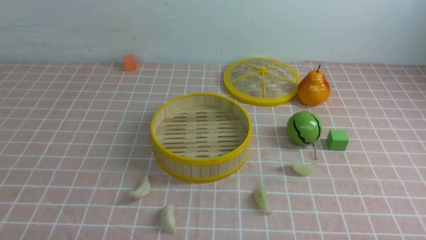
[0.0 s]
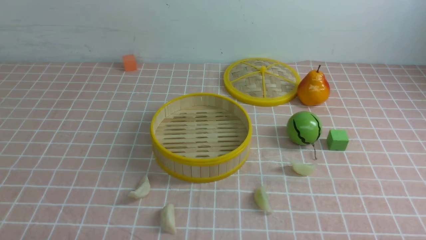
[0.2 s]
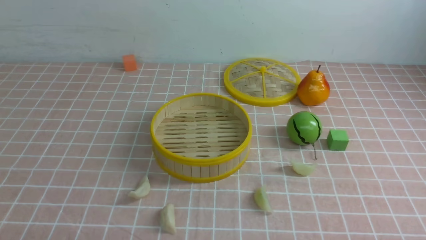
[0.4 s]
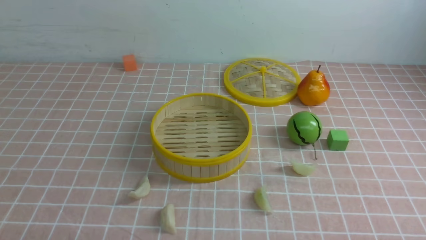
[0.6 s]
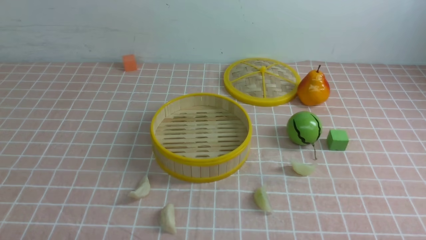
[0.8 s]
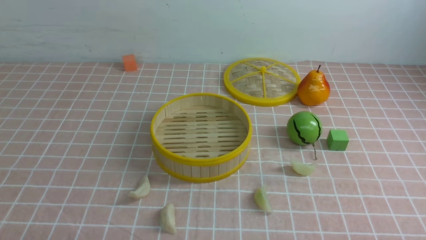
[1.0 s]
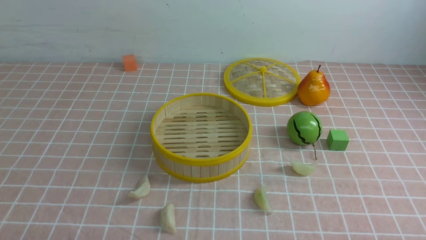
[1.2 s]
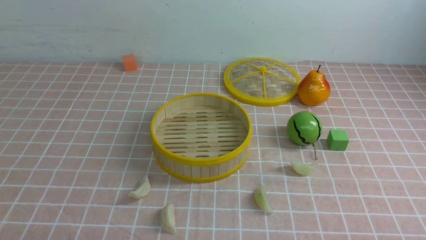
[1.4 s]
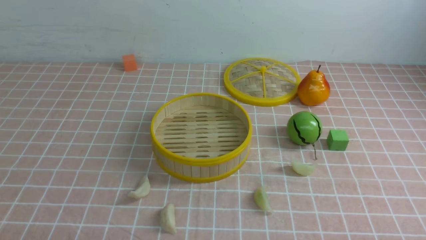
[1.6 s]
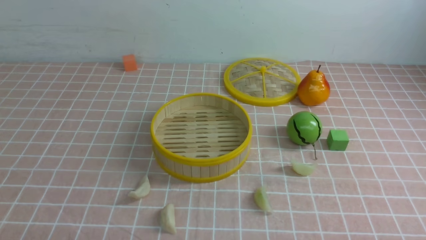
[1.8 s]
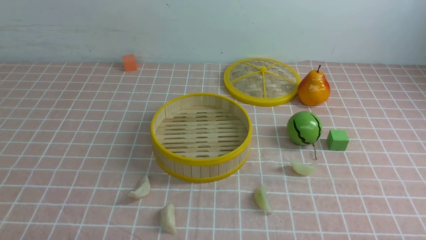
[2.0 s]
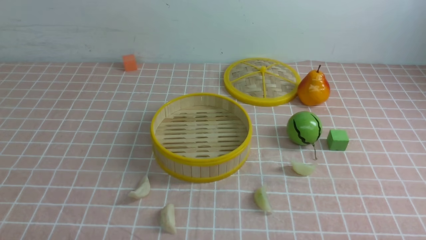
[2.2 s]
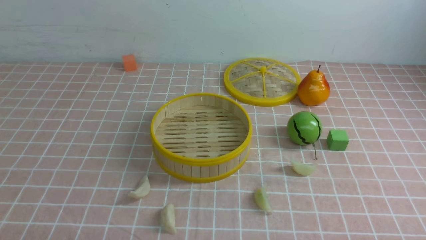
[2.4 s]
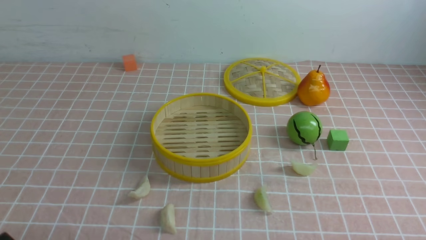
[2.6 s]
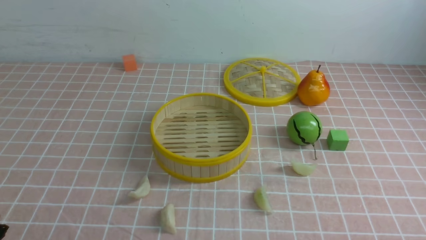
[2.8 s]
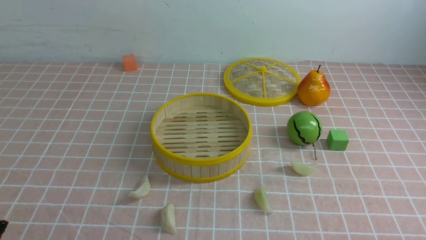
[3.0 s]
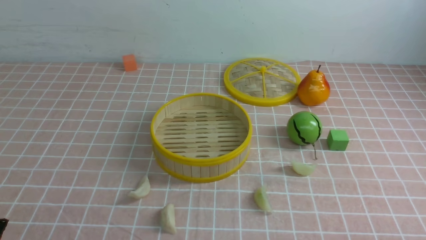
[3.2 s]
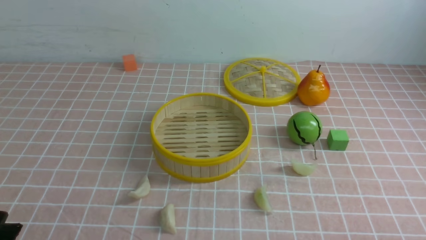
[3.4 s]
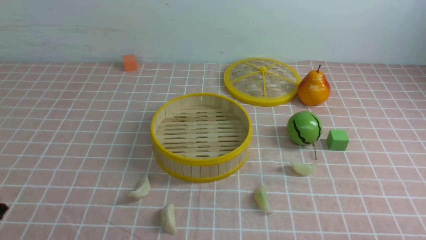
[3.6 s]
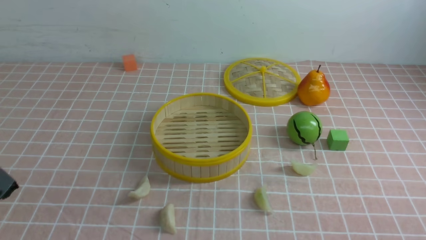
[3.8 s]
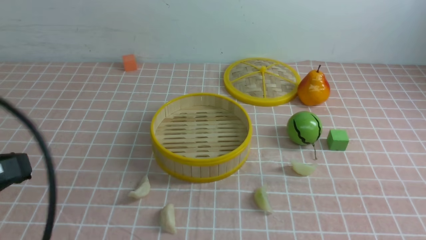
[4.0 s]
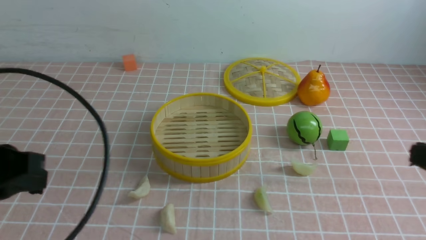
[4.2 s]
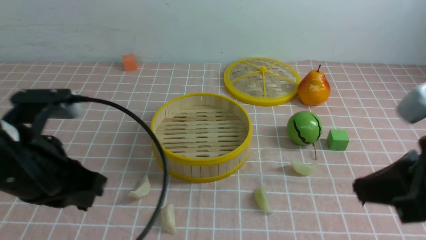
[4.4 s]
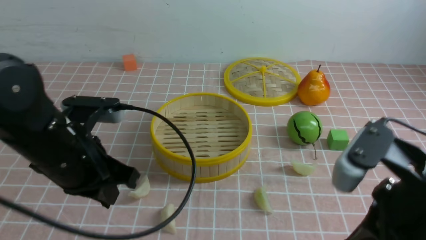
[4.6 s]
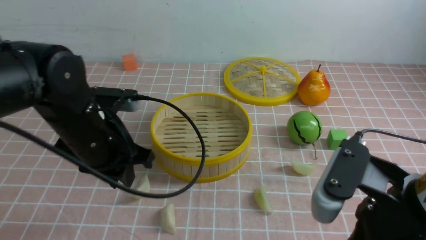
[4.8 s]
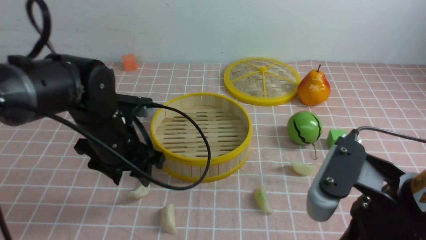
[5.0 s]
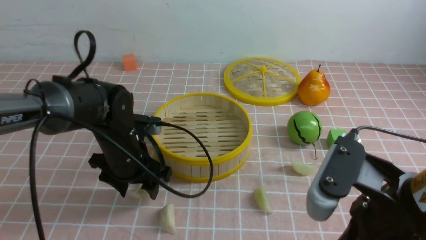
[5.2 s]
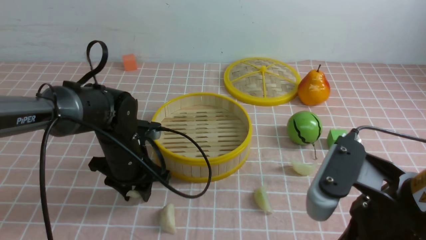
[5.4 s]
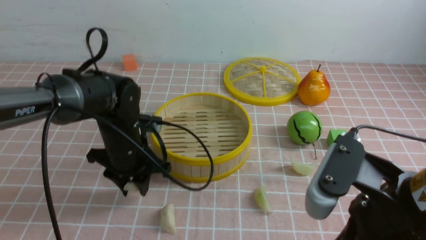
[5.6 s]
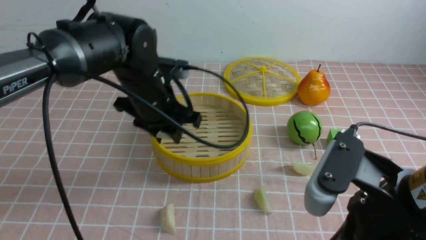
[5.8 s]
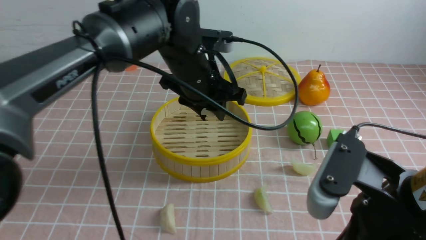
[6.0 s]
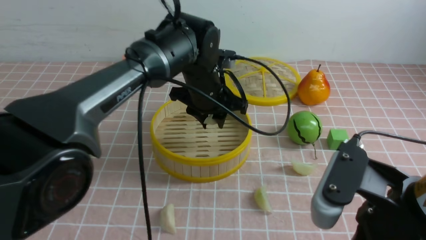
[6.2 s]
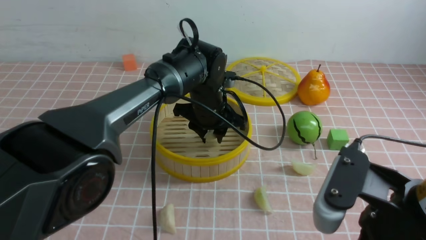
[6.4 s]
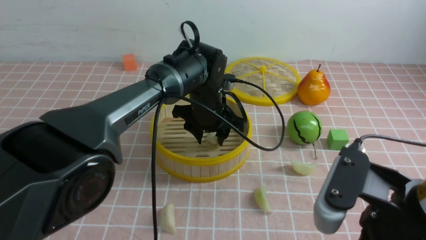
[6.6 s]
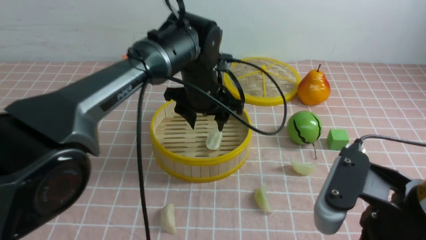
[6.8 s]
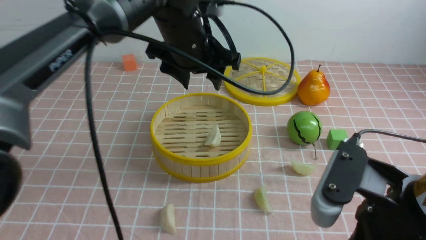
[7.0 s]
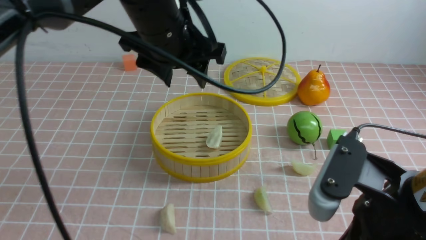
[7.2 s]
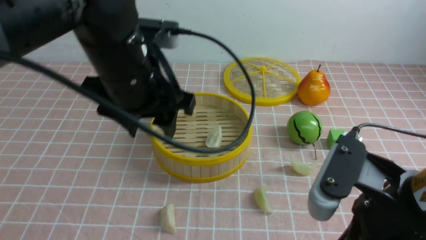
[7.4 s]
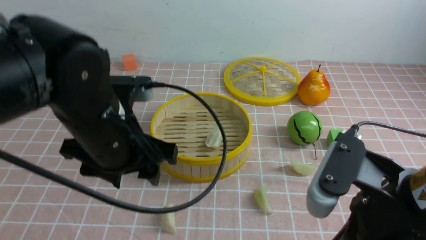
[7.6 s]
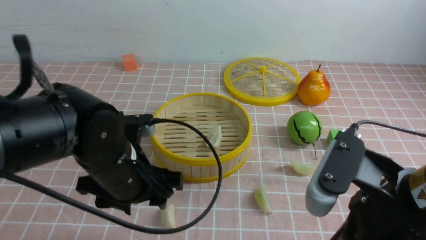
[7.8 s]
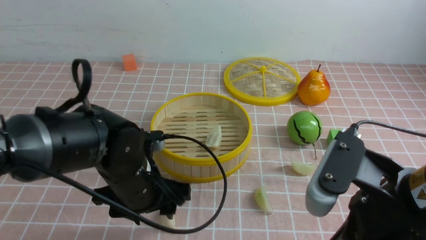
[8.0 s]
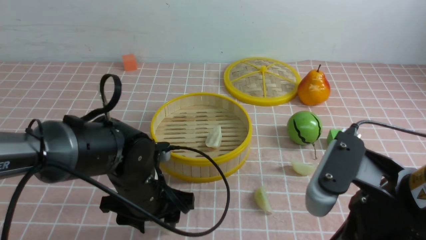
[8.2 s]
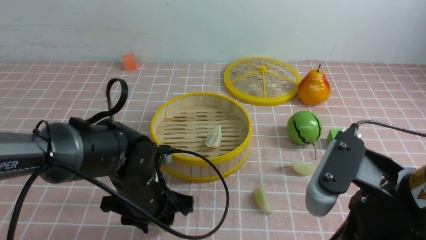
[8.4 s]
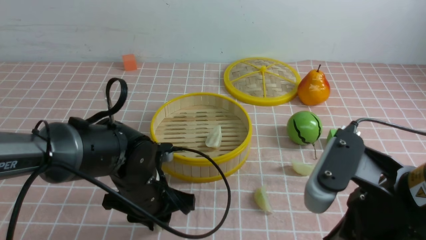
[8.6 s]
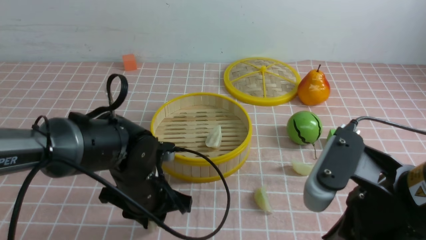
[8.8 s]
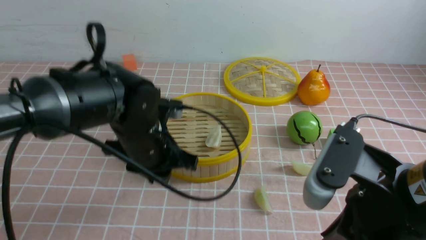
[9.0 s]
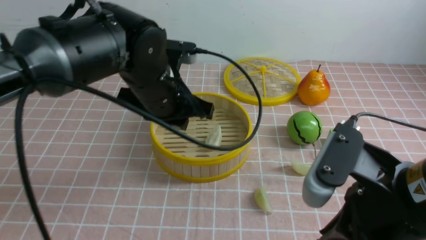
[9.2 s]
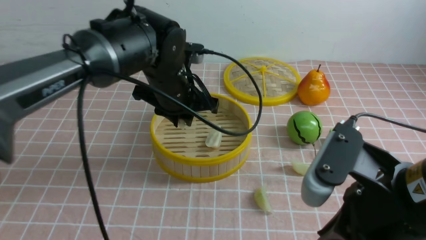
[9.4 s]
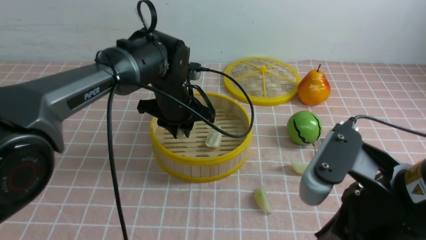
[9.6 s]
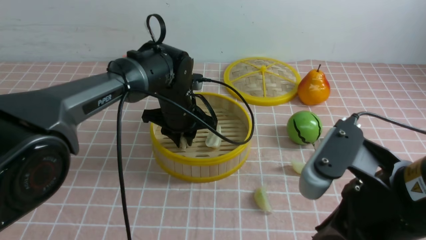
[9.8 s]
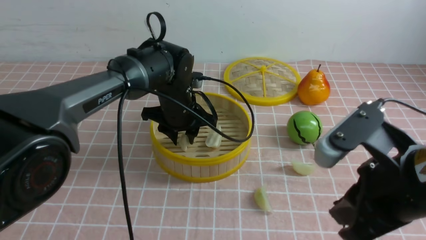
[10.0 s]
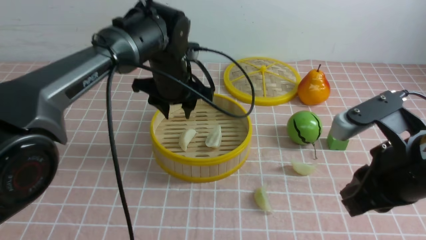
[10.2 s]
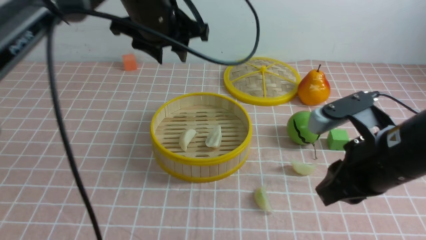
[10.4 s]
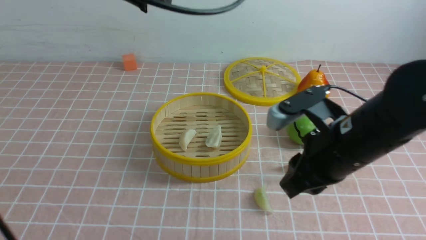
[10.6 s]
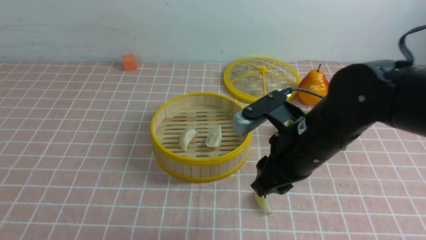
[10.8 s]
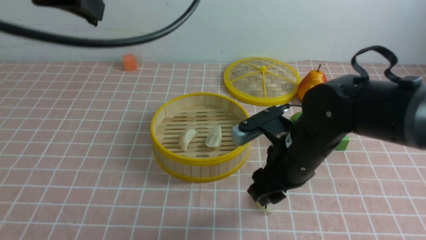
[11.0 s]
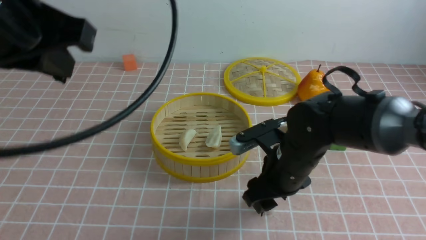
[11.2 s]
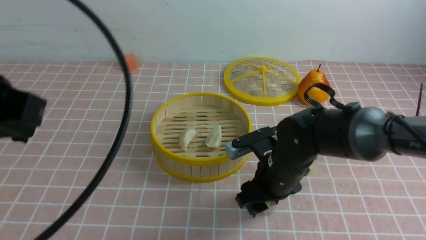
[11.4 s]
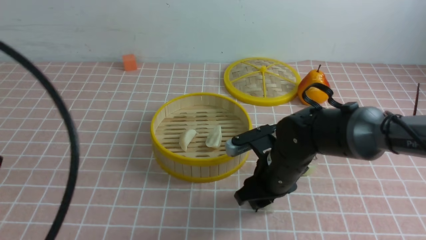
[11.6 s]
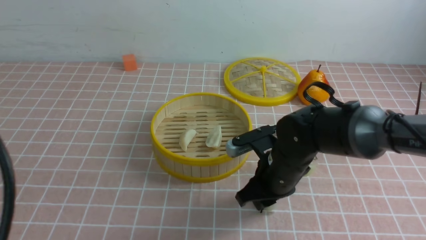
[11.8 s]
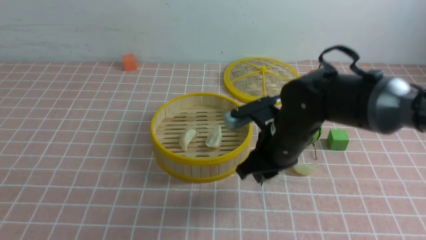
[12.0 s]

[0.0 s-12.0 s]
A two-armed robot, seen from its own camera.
Task of the whole recording: put the dumplings into the steamer on the table with the pink tablecloth.
Step, 0.0 to 5.4 s: use the left arm to grab a dumpling.
Step, 5.6 to 6.6 s: use the left arm to put the dumpling into the steamer.
Step, 6.8 to 8.8 s: use the left arm to grab a dumpling.
Step, 9.0 to 10.0 s: use the left arm to put the dumpling into the steamer.
Step, 10.4 to 11.8 s: use the right arm to grab a dumpling.
0.0 to 1.6 s: The two grippers keep their place.
3.0 to 4.4 s: The left gripper is displaced forward, upward and to the right by some 20 cm, and closes its fingers; the right gripper moves upward, forward and to the left, about 20 cm, and closes up.
4.4 to 6.0 s: The left gripper travels forward and to the right by approximately 25 cm, and opens its fingers; the right gripper is displaced to the left by some 5 cm.
6.0 to 7.6 s: The left gripper moves backward and to the left, about 15 cm, and opens its fingers.
7.6 to 9.0 s: The left gripper closes.
9.0 to 10.4 s: The right gripper shifts about 10 cm forward. The left gripper is displaced upward and forward by approximately 15 cm.
10.4 to 12.0 s: The right gripper heads forward, to the left and downward, covering some 15 cm, and opens and closes again, while the left gripper heads backward and to the left, covering some 35 cm, and closes.

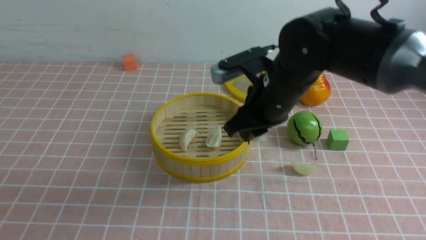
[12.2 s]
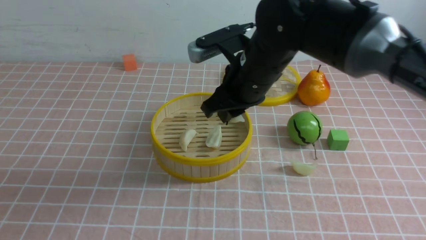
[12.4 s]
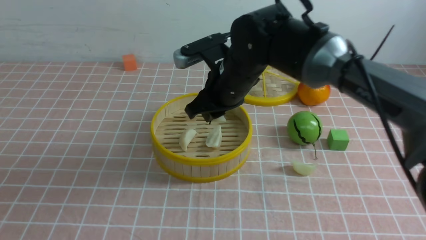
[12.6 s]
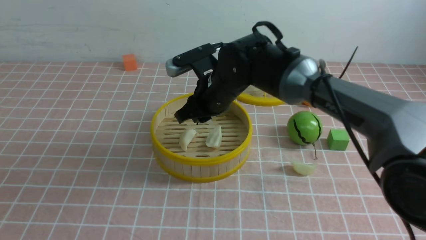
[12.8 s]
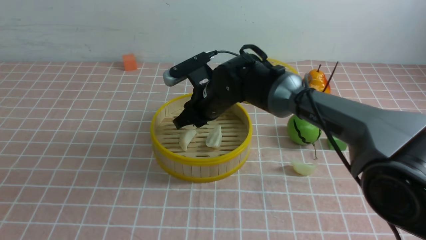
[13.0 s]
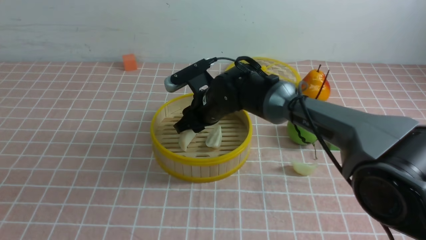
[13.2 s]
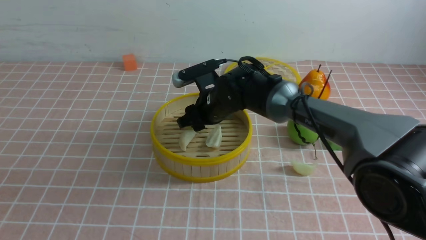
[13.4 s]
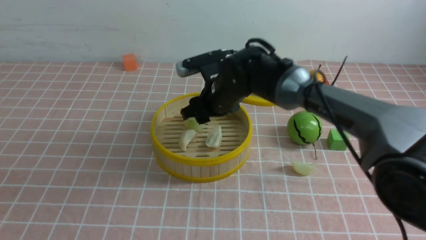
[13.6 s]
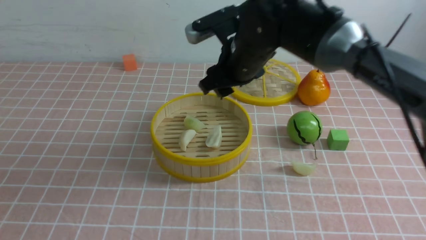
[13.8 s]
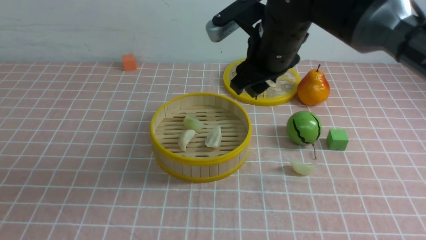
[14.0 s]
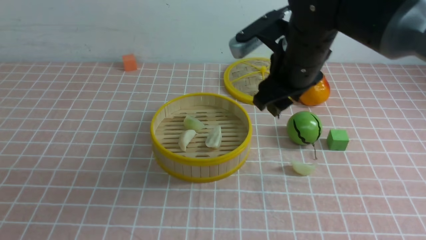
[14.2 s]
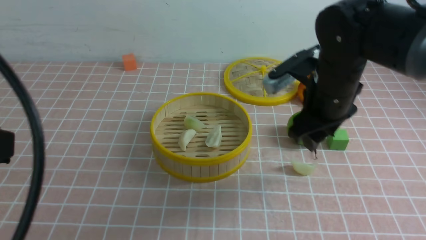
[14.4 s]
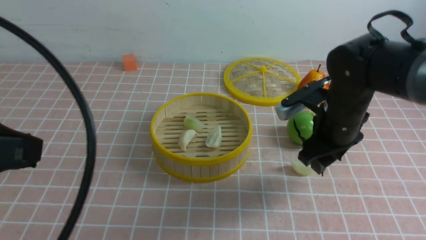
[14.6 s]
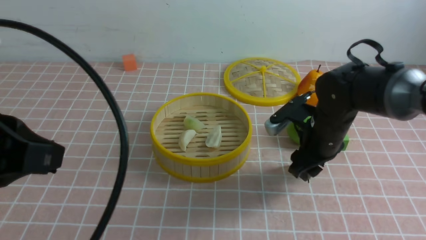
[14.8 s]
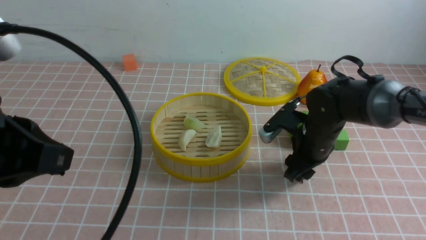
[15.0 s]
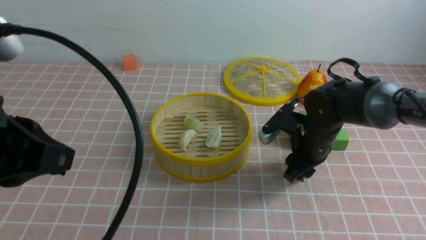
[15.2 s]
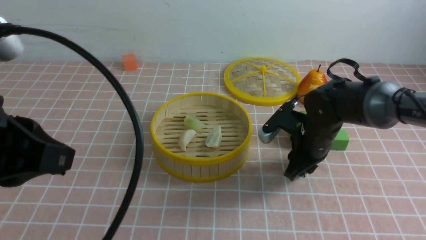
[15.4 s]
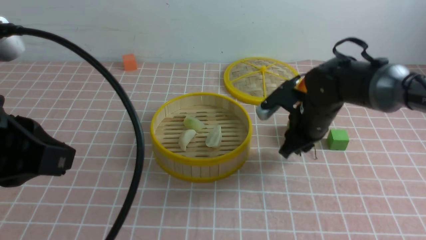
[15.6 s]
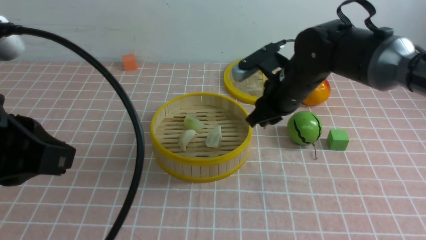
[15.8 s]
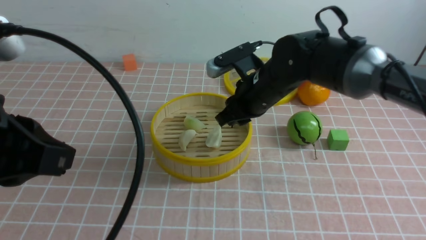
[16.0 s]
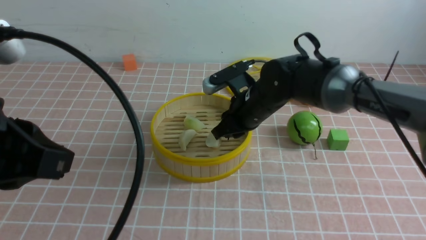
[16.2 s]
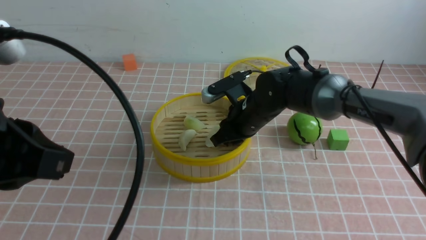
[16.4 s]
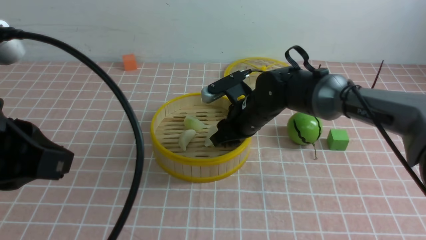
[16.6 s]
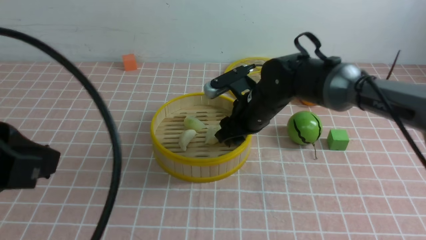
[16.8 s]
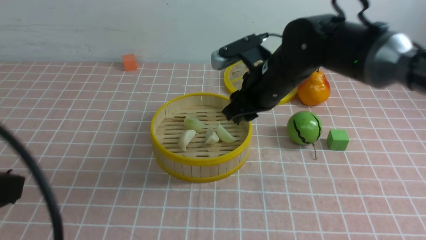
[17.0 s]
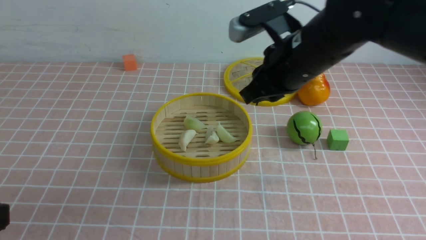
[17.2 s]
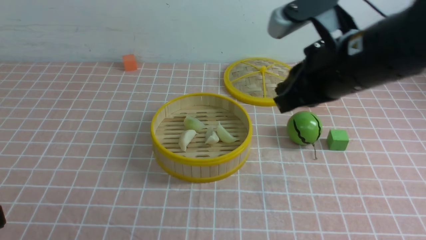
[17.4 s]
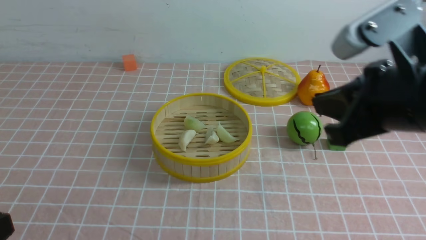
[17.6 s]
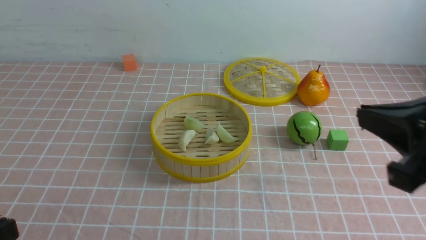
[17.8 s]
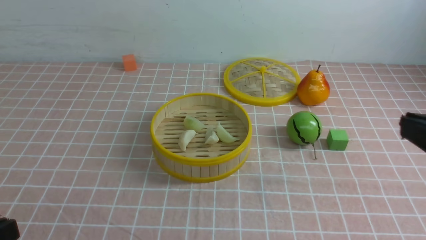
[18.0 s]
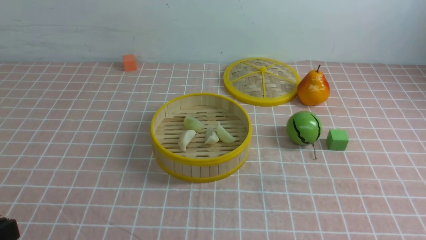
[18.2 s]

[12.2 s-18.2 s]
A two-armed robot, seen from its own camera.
Task of the whole recording: put the dumplings into the steamer on the table with the pink tablecloth.
Step, 12.2 to 13.6 s: use the right arm to put the dumpling into the steamer.
Step, 13.8 to 15.4 s: use the right arm to grab a dumpling.
Step, 15.6 to 17.0 s: use the right arm to put the dumpling into the steamer.
12.2 to 13.8 s: The right gripper is displaced forward by some 5 cm, reaches roughly 10 cm downward, then returns, and opens up.
13.8 to 15.2 s: The right gripper heads downward and to the right, covering approximately 20 cm; the left gripper goes roughly 10 cm forward and to the right.
15.2 to 16.6 s: The right gripper moves to the left, some 10 cm.
16.6 to 18.2 s: The left gripper heads downward, backward and to the left, covering approximately 15 cm; the right gripper is displaced backward, to the right and upward by roughly 40 cm, and closes.
